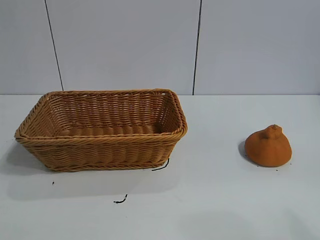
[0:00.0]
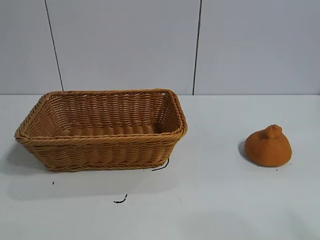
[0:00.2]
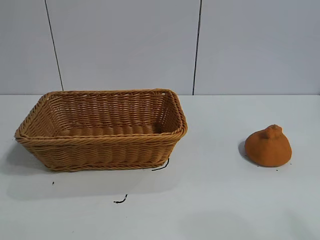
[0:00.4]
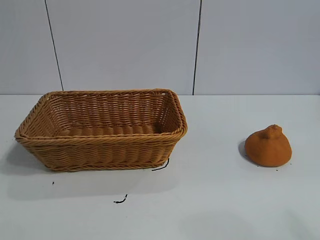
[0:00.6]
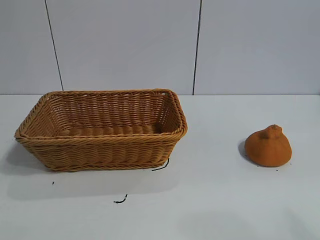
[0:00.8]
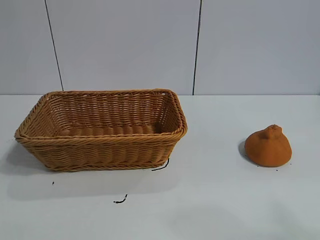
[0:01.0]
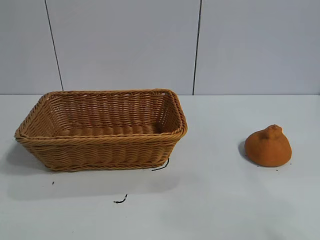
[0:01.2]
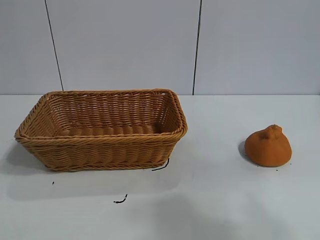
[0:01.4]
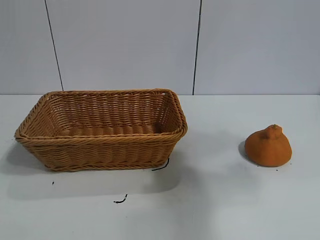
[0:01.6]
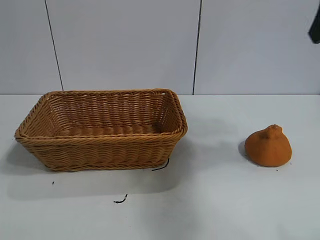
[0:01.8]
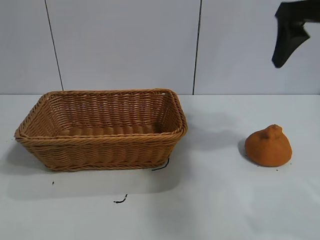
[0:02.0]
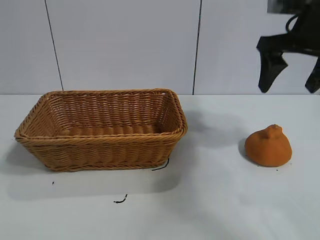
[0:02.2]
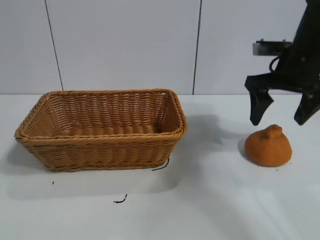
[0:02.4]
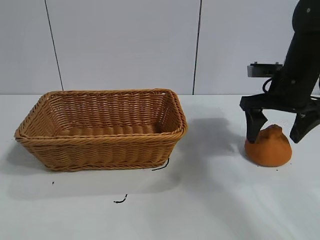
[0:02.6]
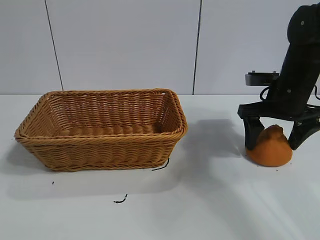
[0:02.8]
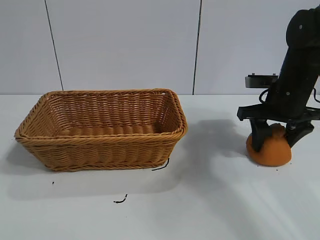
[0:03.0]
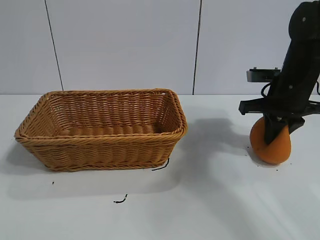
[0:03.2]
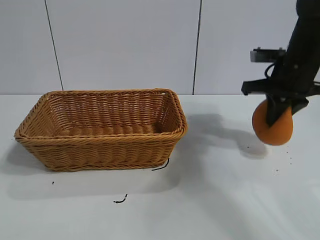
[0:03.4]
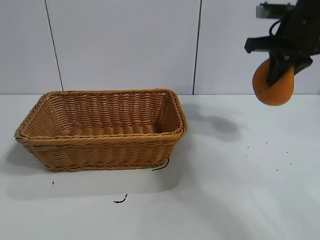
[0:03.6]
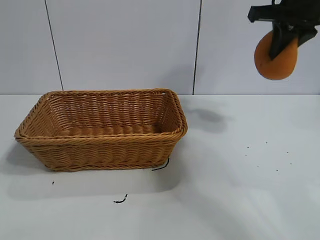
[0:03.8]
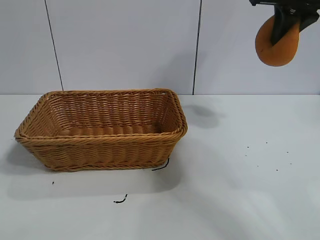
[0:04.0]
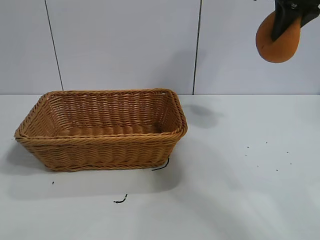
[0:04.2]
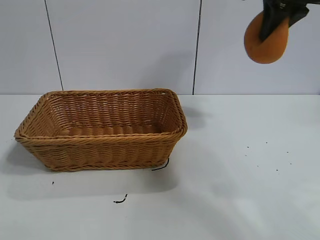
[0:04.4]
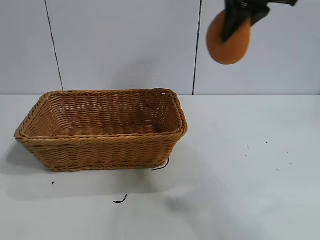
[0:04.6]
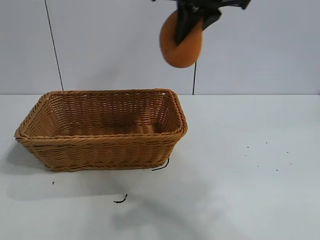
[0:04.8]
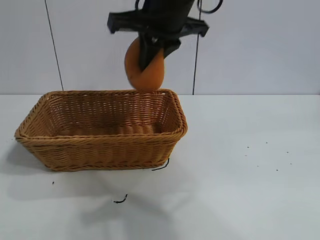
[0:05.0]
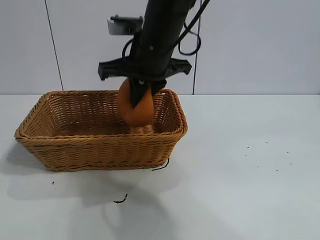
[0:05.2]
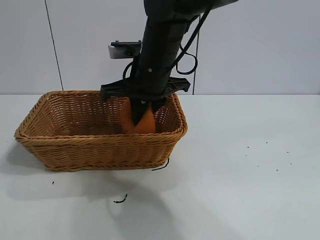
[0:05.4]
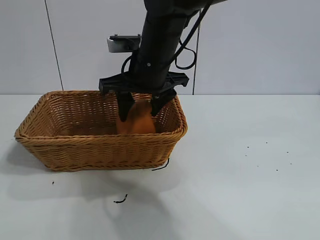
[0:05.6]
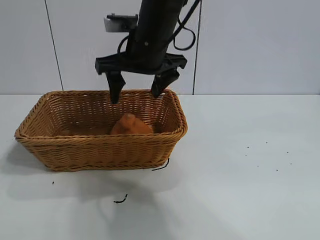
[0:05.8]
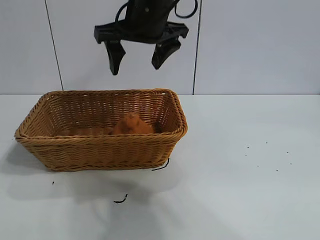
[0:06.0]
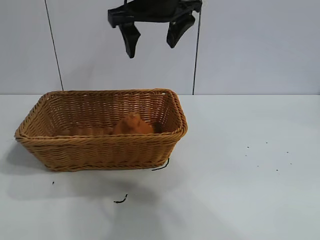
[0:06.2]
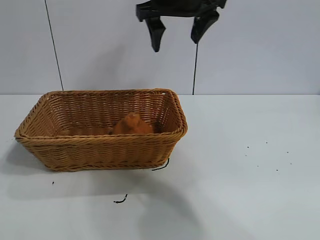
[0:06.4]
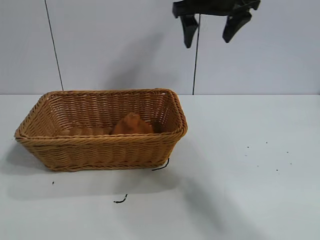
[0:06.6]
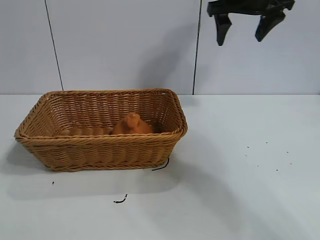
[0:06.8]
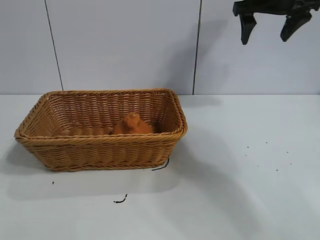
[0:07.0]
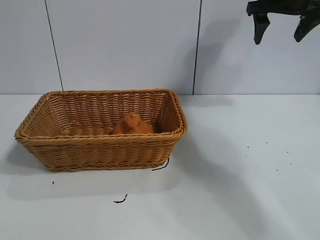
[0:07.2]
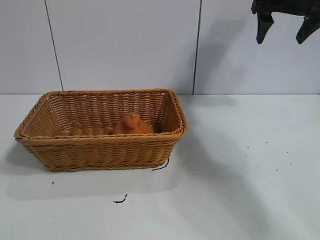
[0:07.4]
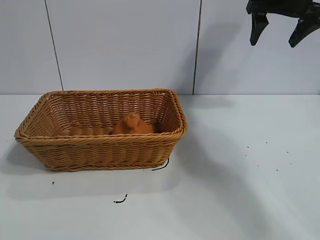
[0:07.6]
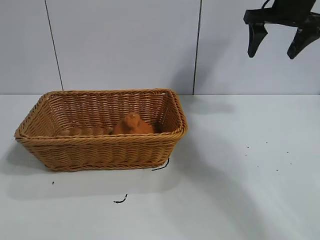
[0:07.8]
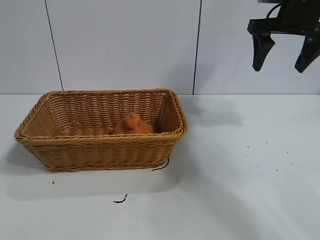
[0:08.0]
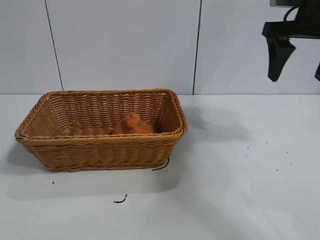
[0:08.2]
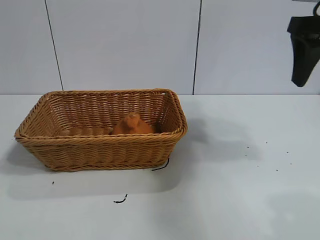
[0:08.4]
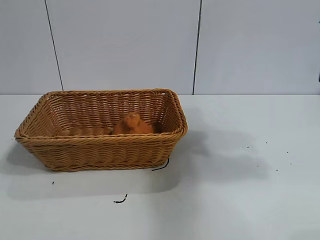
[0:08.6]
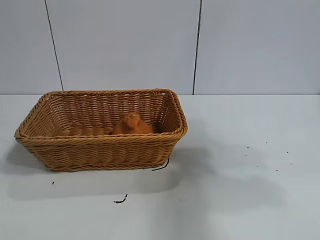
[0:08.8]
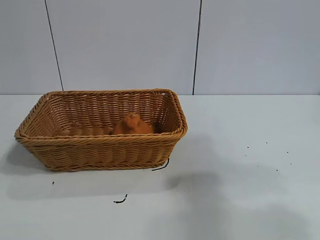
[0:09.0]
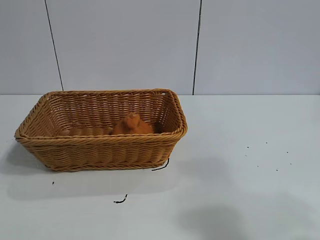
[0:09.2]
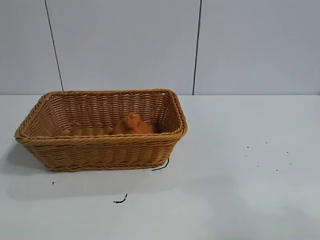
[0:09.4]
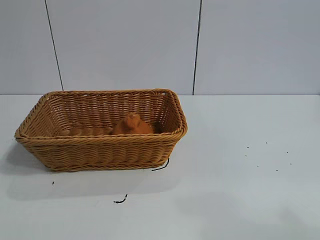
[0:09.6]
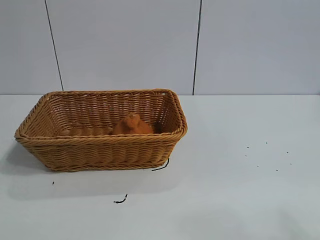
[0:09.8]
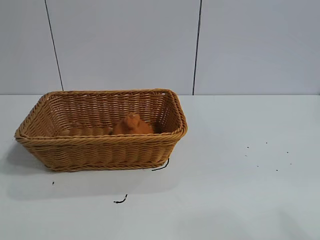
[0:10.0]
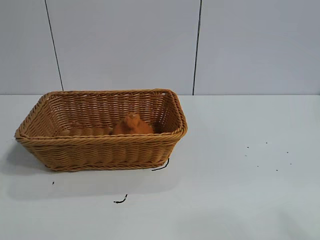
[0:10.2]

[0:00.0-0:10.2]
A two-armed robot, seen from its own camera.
Task of the whole recording: pick up the orange and put it into the basket.
Step, 0:01.0 to 0:03.2: Grasp the orange with right gripper.
Step, 0:03.4 to 0:05.6: Place the orange in the basket with right gripper.

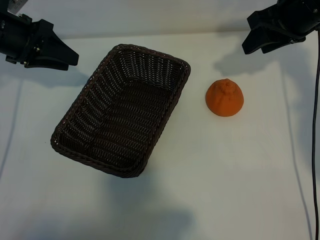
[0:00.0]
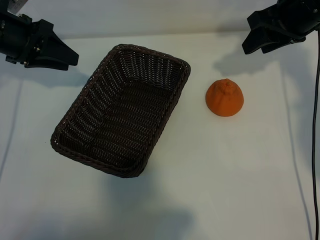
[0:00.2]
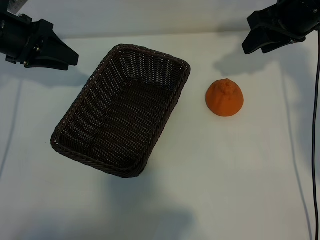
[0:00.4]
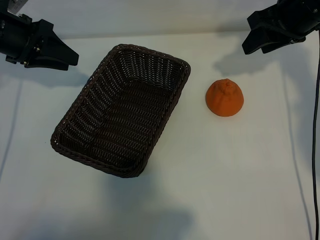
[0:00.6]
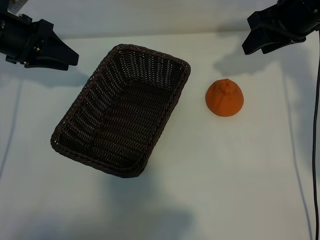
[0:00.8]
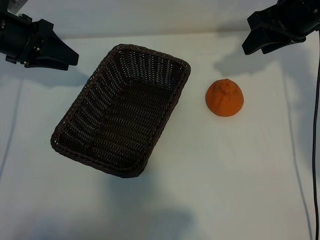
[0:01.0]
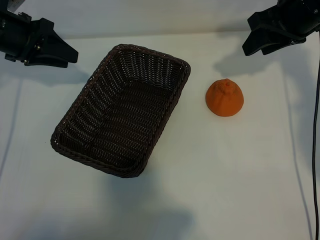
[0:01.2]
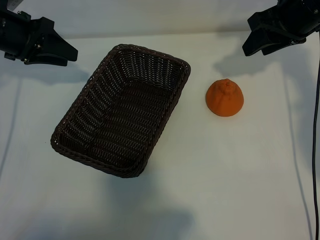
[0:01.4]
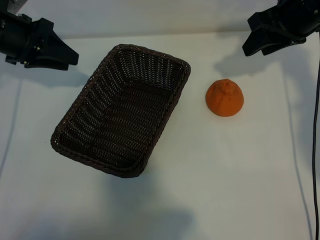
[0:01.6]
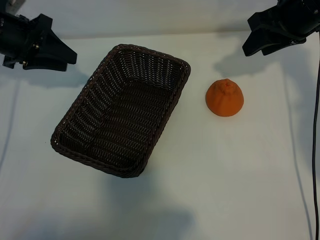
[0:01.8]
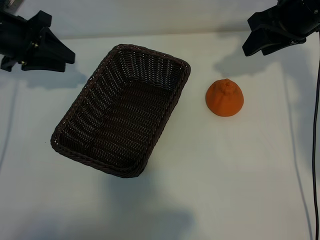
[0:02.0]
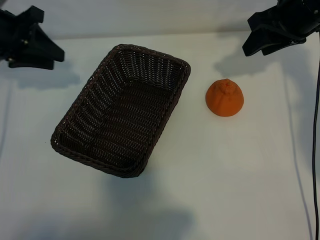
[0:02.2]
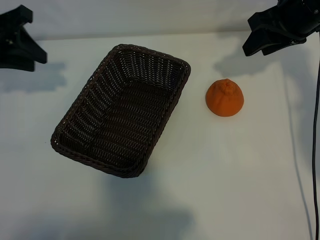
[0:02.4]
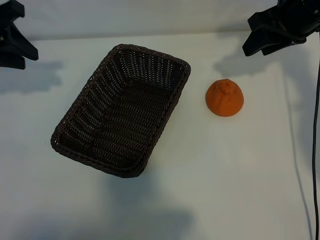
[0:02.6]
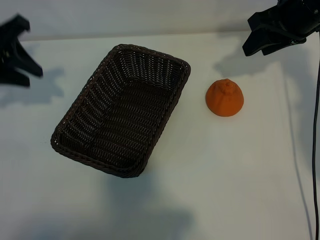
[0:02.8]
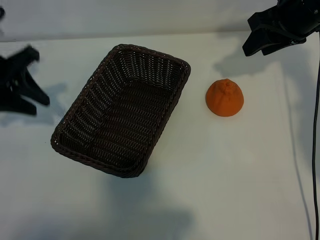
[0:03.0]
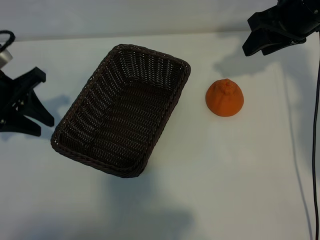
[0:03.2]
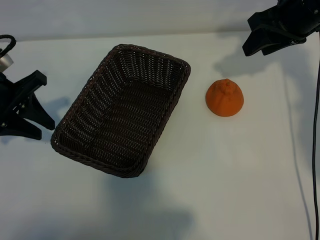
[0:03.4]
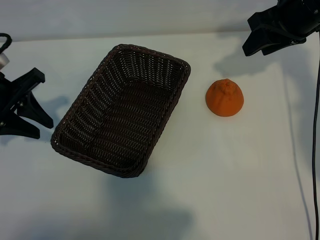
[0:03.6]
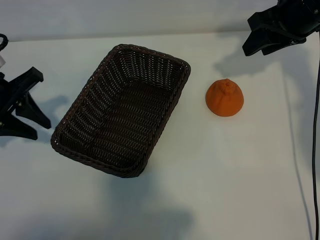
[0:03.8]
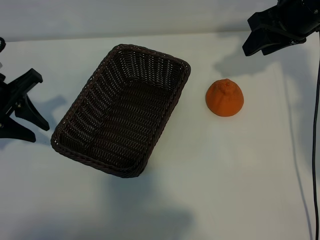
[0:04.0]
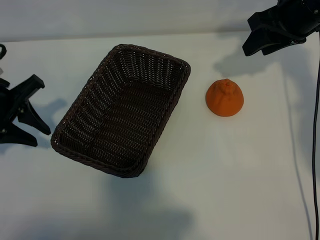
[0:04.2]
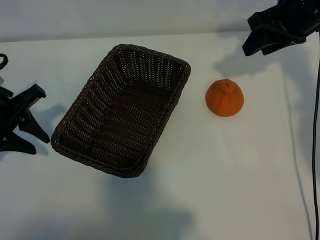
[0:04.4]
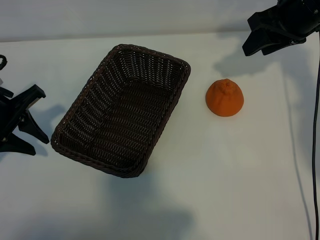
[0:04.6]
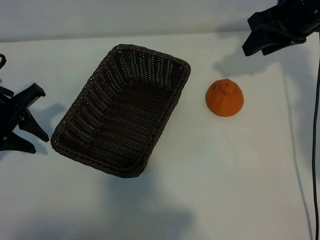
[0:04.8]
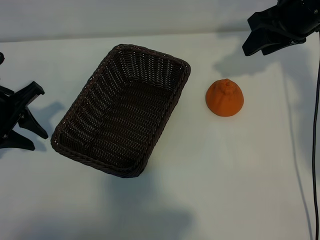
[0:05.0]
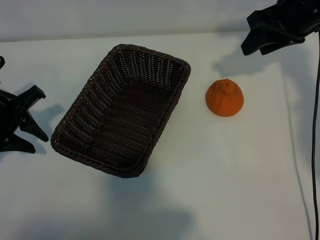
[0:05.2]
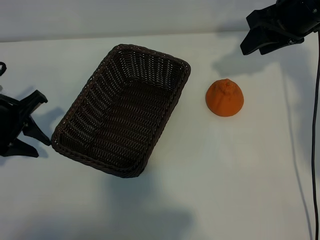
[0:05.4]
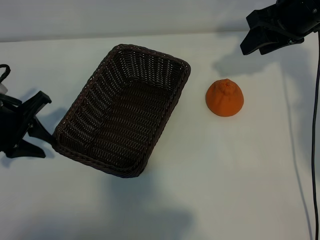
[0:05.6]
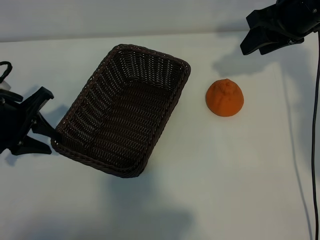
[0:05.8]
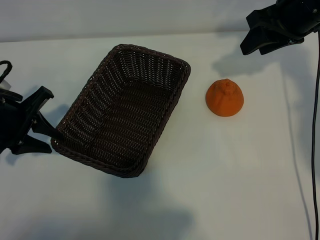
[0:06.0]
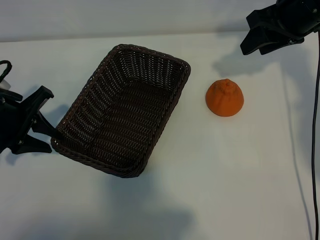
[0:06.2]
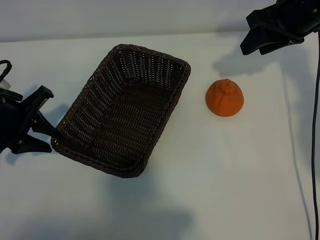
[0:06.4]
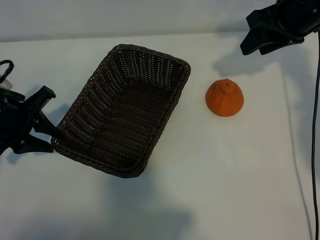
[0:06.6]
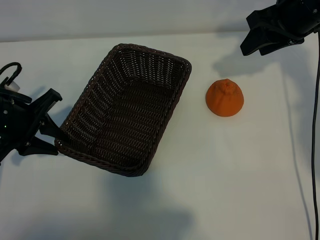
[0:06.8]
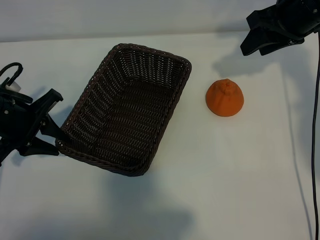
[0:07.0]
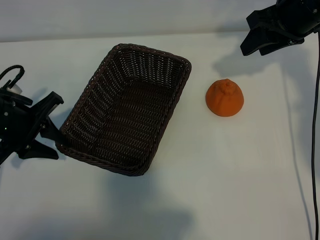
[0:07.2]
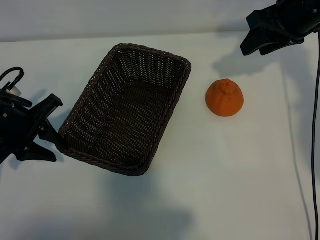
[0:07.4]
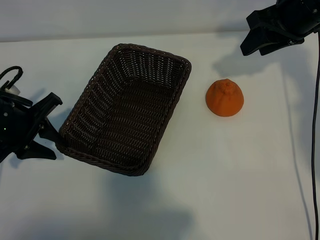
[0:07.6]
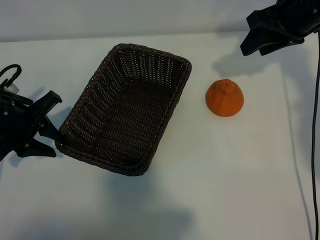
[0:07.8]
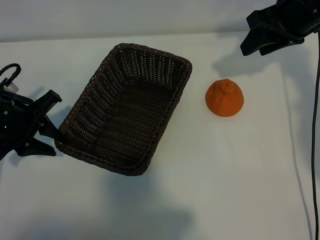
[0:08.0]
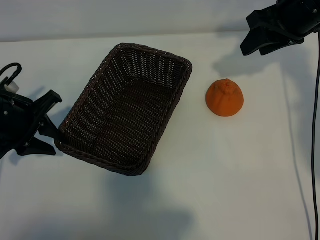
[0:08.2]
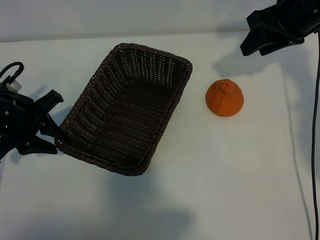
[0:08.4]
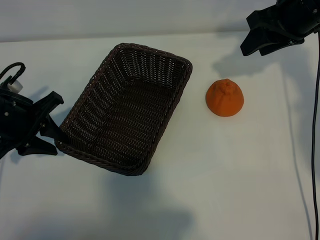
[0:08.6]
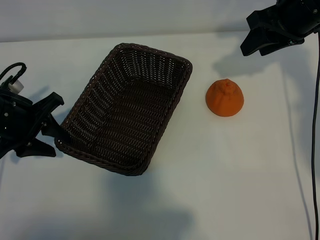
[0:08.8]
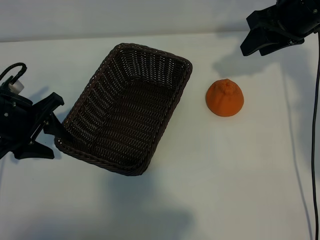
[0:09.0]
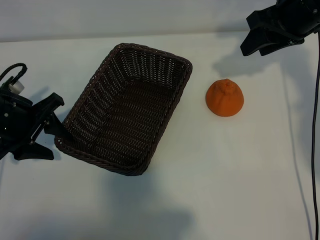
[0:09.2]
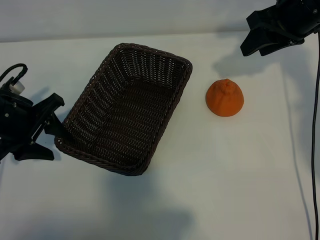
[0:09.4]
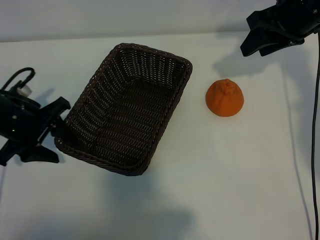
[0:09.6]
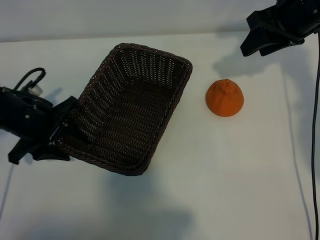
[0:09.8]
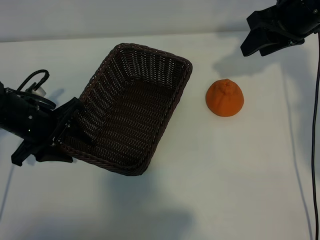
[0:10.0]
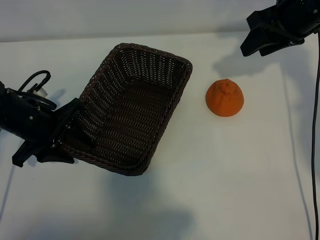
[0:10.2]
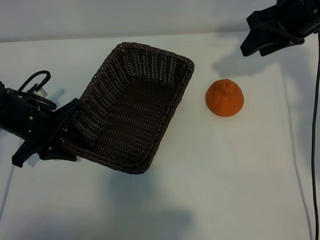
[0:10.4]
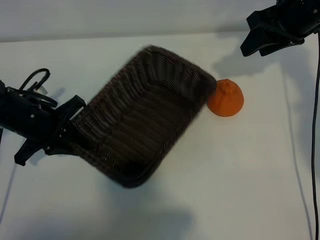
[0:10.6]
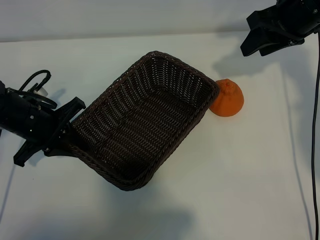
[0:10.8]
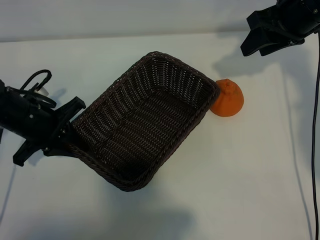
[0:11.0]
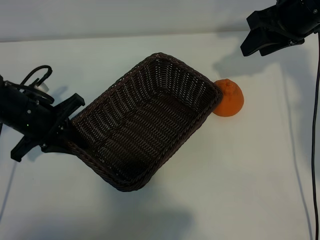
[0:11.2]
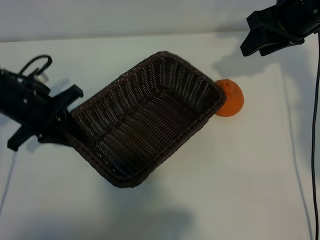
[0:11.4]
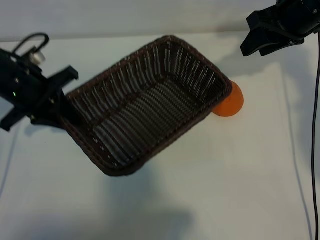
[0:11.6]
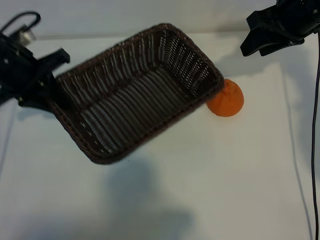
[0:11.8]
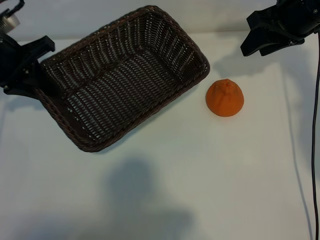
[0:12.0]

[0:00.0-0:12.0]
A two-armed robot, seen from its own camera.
Task of the whole recording: pick up the orange and put it into the basket.
Step, 0:01.2 to 0:10.6: Grasp the basket with left gripper.
